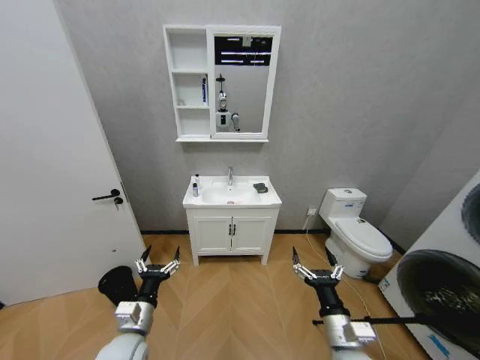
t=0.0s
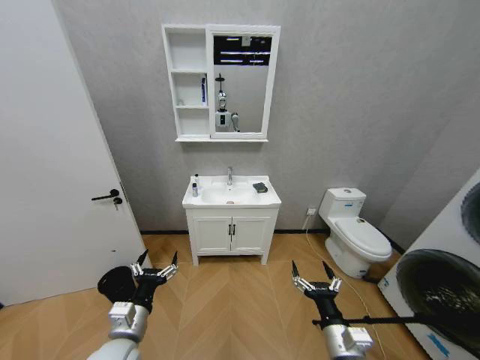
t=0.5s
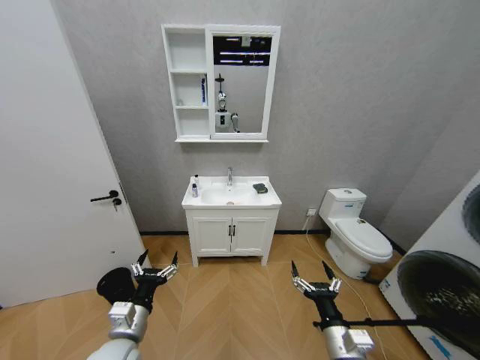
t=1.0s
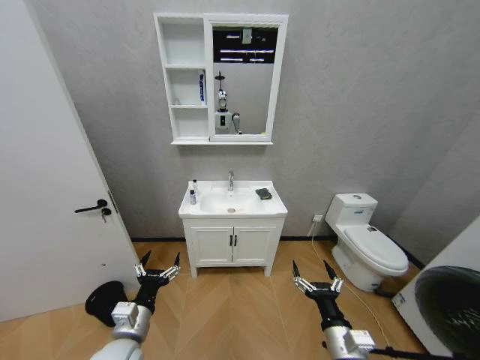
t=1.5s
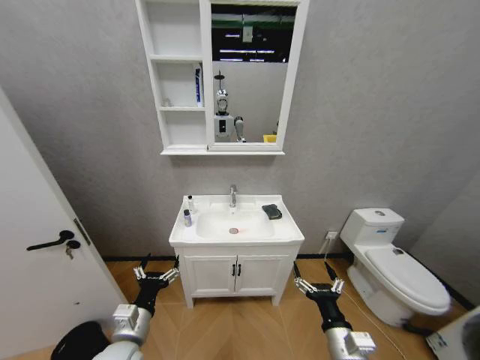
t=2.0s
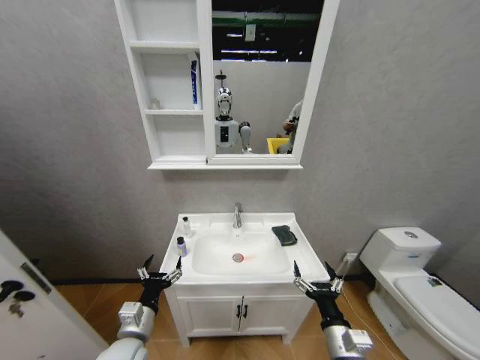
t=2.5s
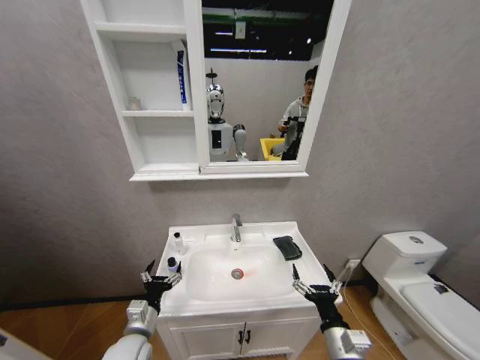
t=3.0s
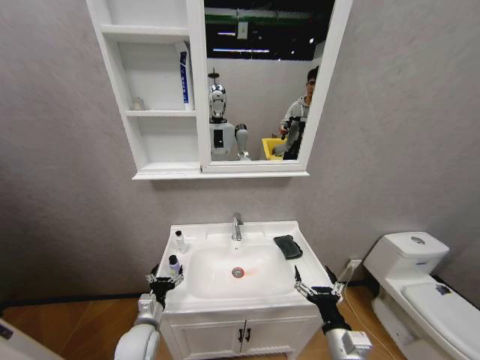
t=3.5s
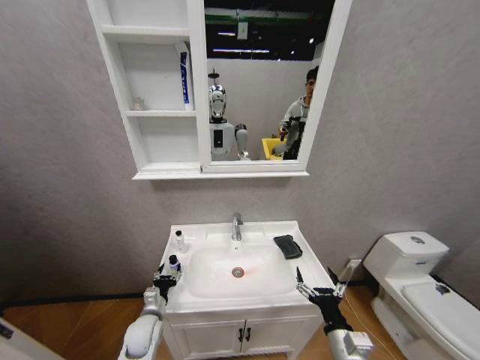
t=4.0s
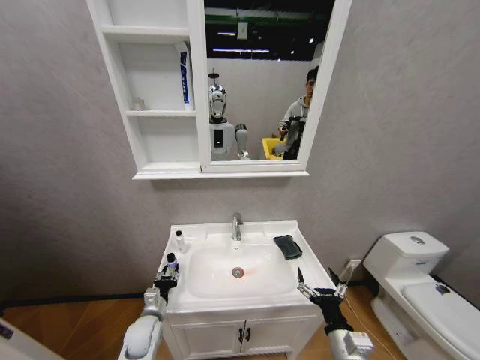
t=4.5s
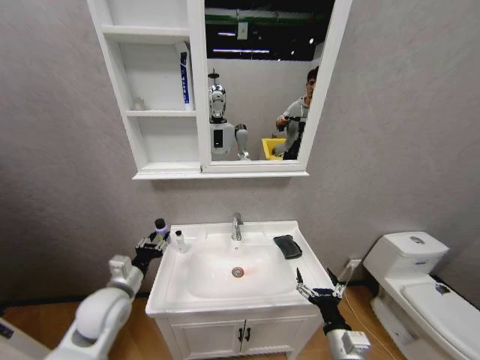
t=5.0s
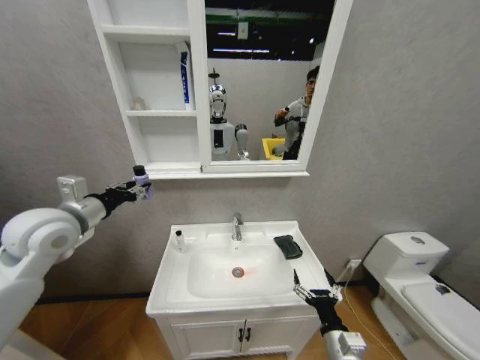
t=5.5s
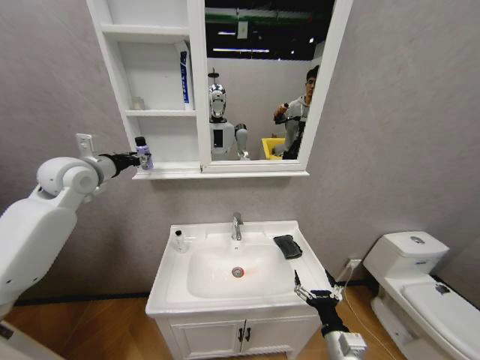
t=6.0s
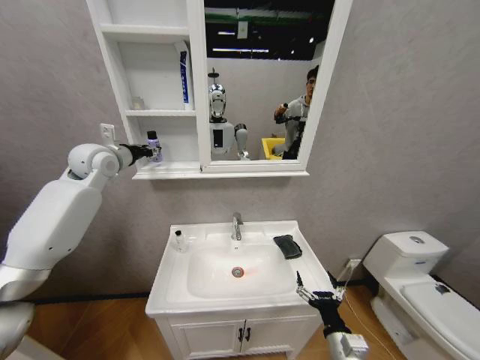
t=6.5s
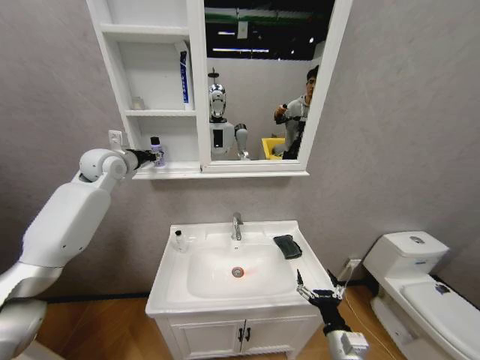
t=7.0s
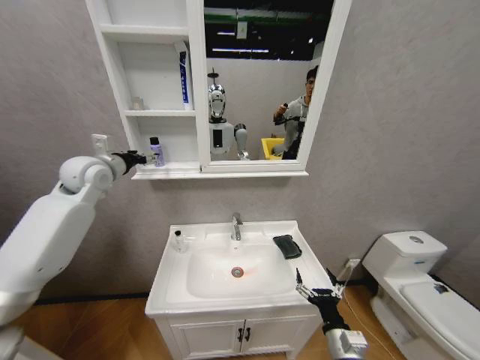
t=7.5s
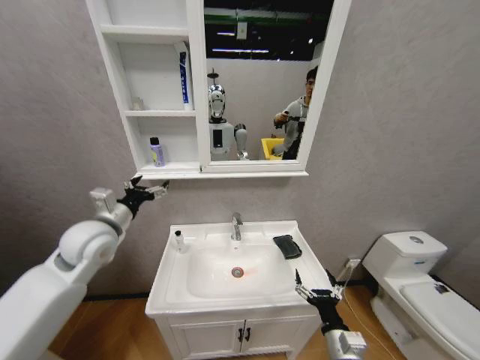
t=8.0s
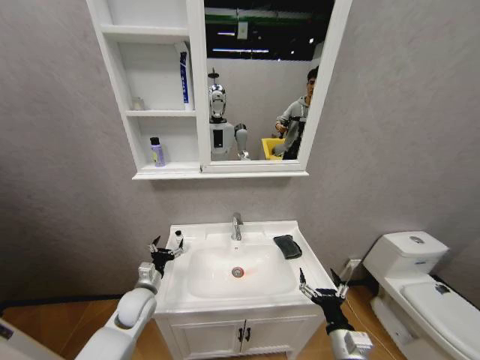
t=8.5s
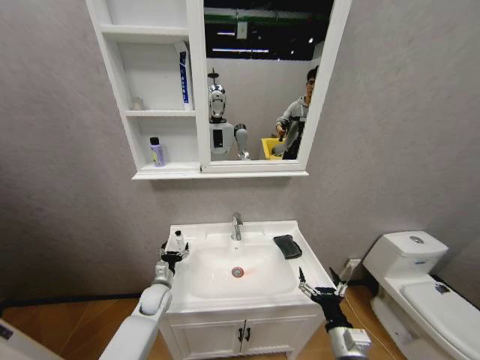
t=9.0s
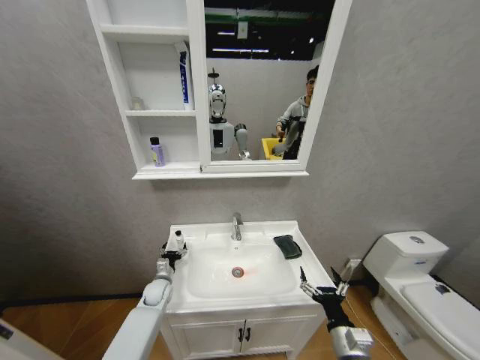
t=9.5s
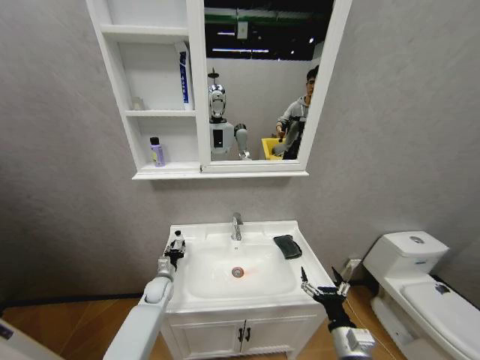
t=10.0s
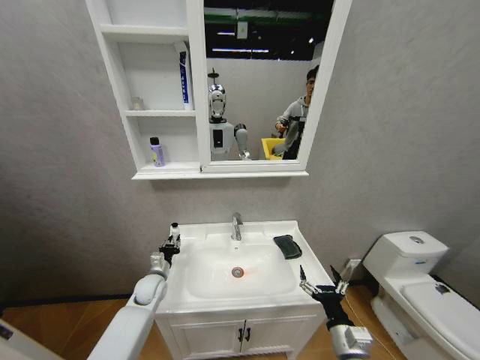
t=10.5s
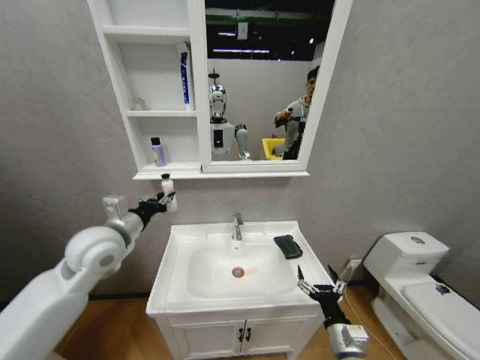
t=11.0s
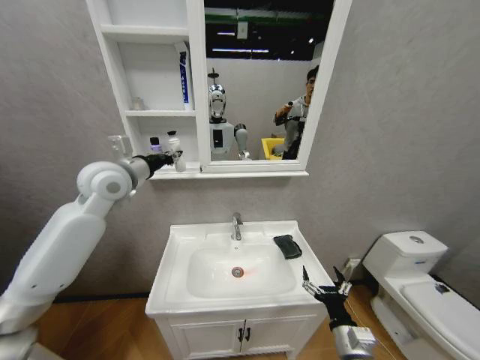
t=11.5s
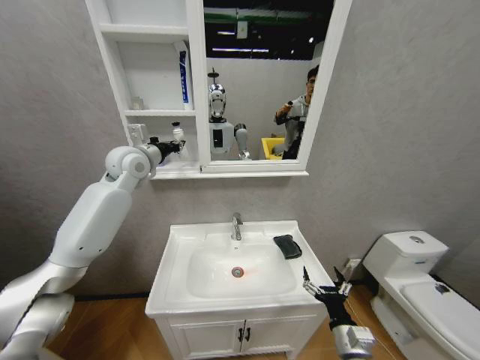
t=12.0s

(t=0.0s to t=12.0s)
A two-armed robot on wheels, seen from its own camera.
Task of the whole recording: Move facial cleanser and shampoo from washbasin to cabinet, then wipe washbasin with towel.
t=2.0s - t=4.0s: The left gripper goes approximately 15 cm downward and forward.
t=4.0s - t=6.0s: The left gripper is displaced upward by approximately 50 cm, and closes up.
t=6.0s - t=8.0s: The left gripper travels downward, backward and to the right by roughly 15 cm, and opens its fingers.
t=8.0s - t=10.0s: The left gripper moves downward, approximately 35 cm, and closes up.
t=10.0s - t=12.0s: The left gripper is displaced upward by about 50 cm.

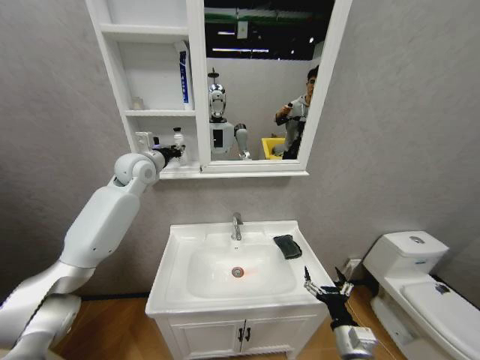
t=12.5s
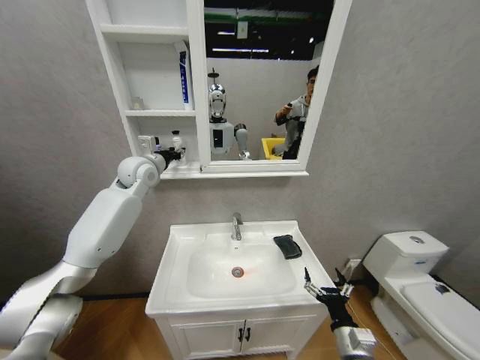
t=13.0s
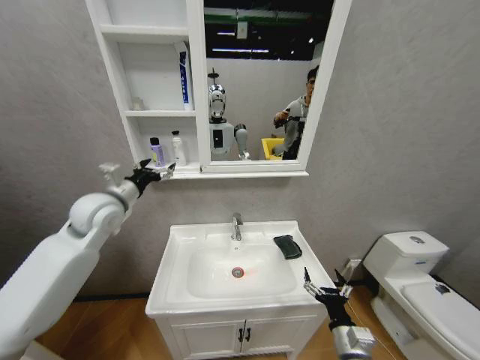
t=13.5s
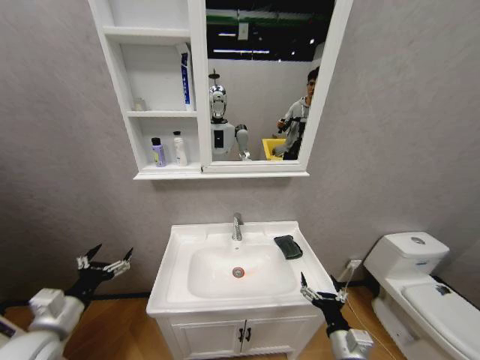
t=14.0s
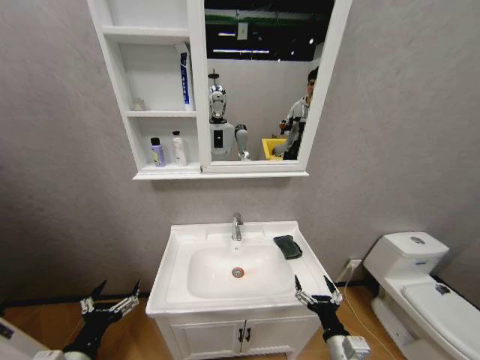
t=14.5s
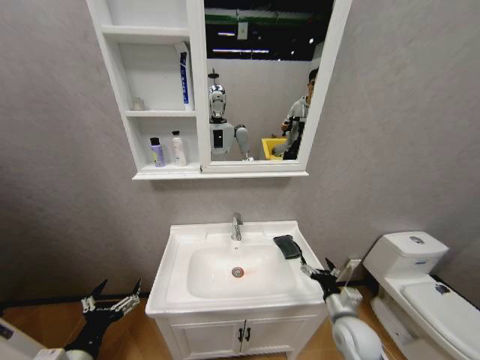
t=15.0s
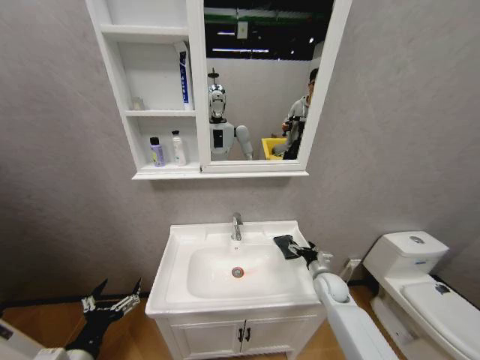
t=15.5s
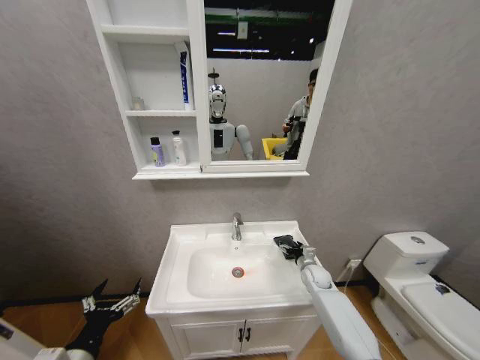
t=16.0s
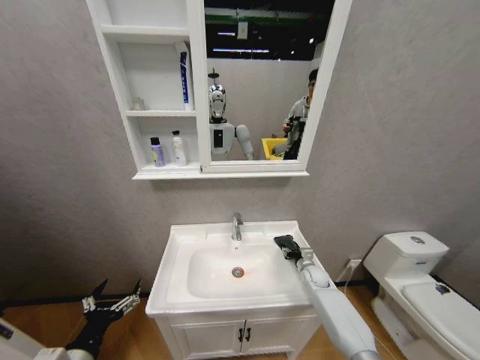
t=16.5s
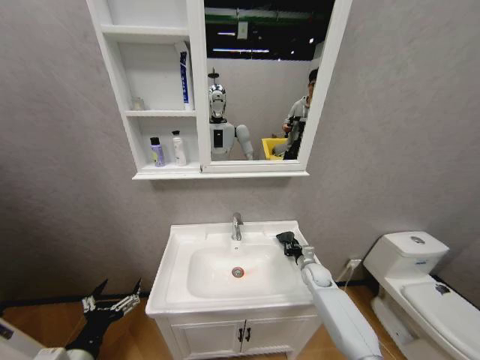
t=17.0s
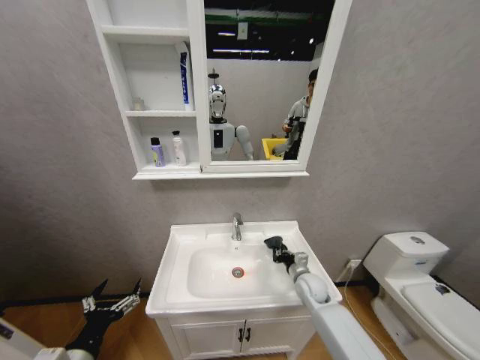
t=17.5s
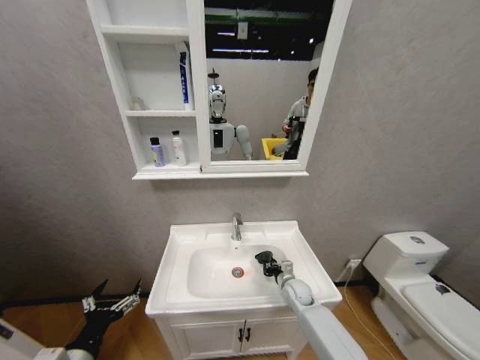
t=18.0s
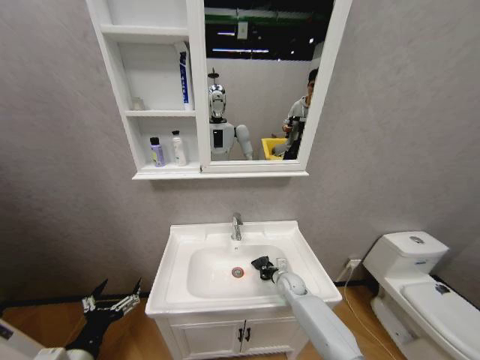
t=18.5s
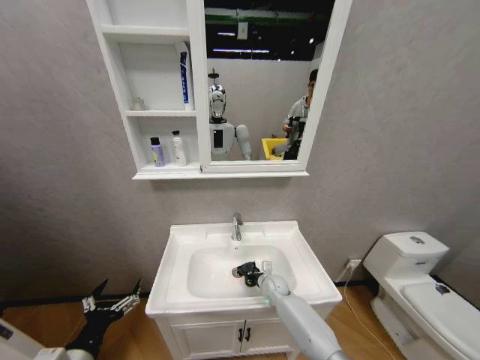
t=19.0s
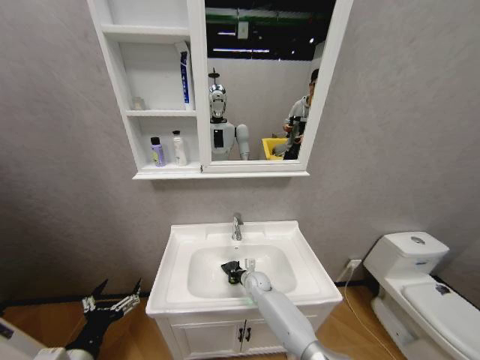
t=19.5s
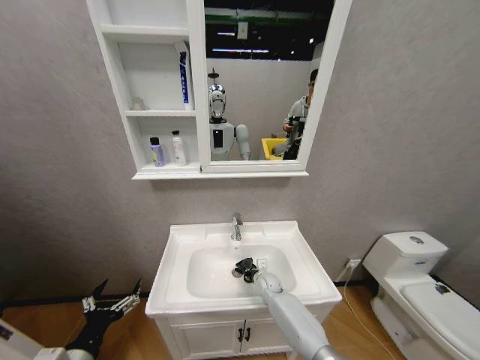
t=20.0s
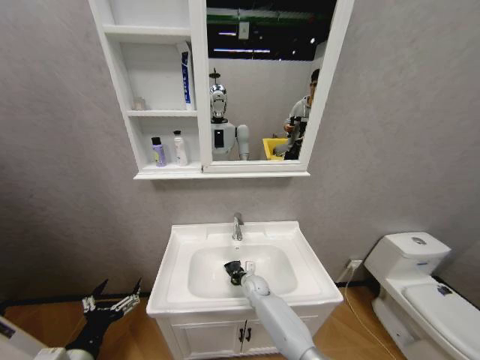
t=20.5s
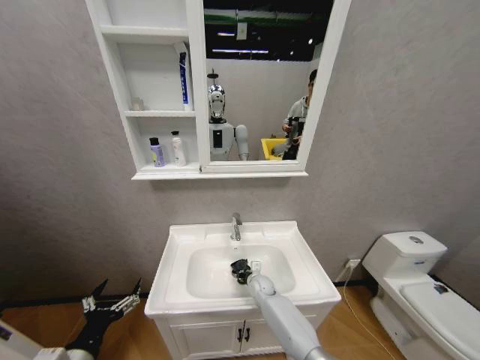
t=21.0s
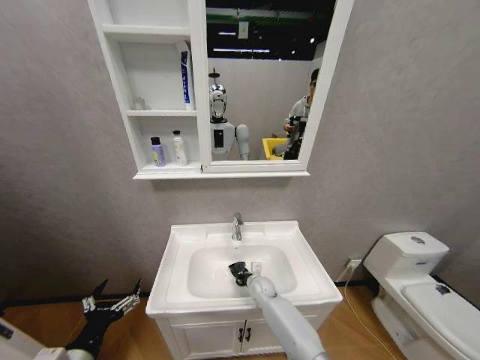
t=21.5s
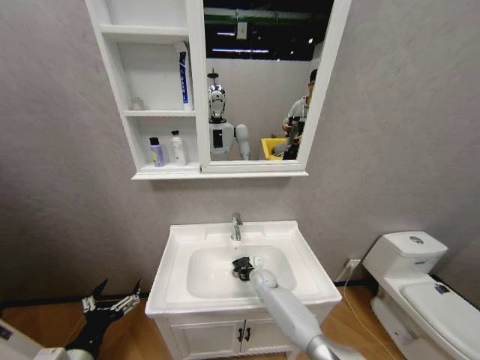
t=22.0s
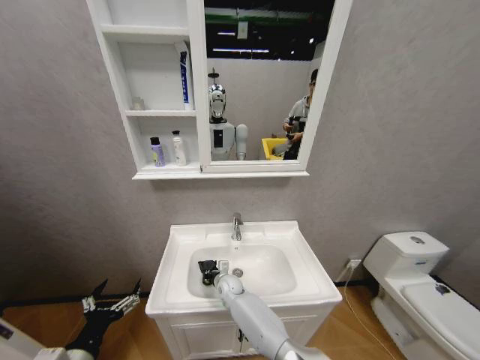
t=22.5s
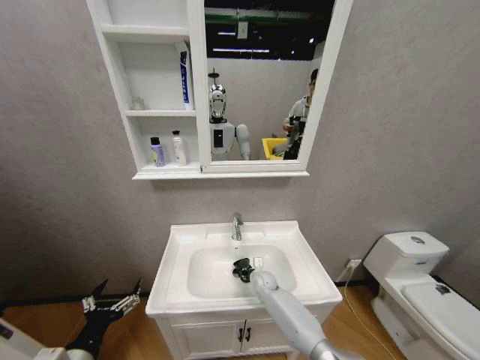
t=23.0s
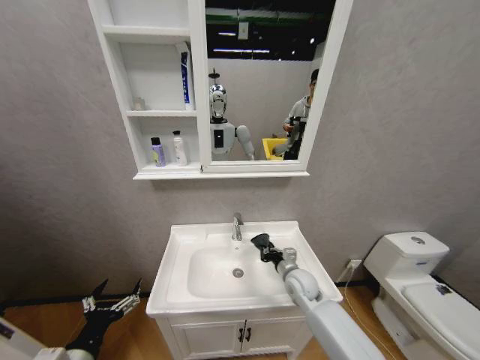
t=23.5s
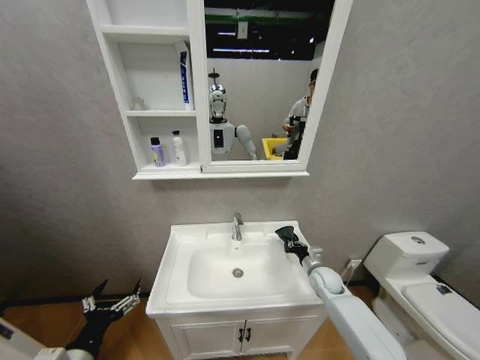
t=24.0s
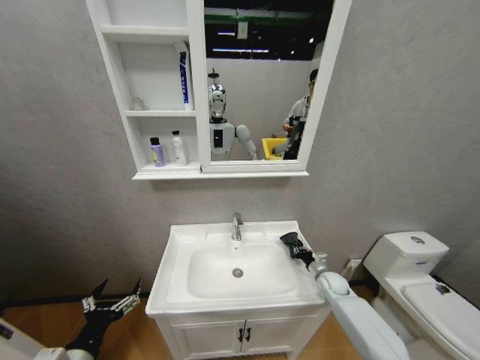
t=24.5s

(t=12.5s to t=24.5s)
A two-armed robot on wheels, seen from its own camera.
Task of the whole recording: Move facial cleanser and shampoo from washbasin to cabinet, then wipe washbasin with towel.
t=12.5s - t=14.5s: The left gripper is displaced backward and downward by roughly 50 cm, and opens its fingers.
t=14.5s - t=16.5s: The right gripper is displaced forward by approximately 30 cm.
t=16.5s - t=18.5s: The right gripper goes some 10 cm to the left, and closes up.
t=18.5s - t=20.5s: The right gripper moves left and right over about 15 cm, changing direction 2 times.
t=20.5s - t=22.5s: The right gripper travels to the left by some 10 cm.
t=22.5s - t=24.5s: The right gripper travels to the right by approximately 35 cm.

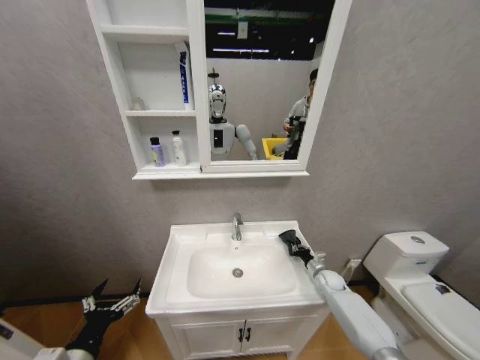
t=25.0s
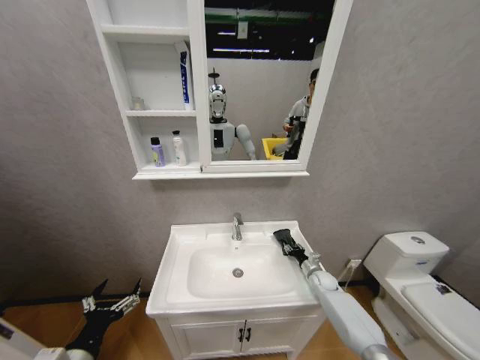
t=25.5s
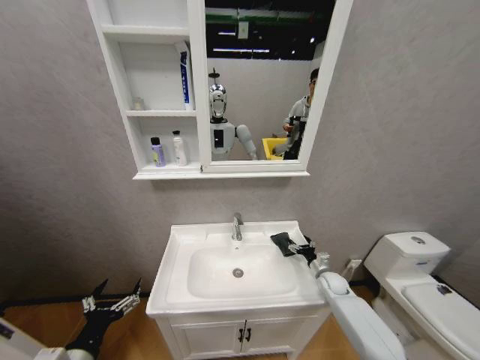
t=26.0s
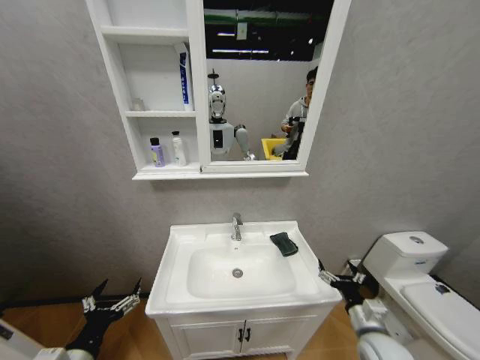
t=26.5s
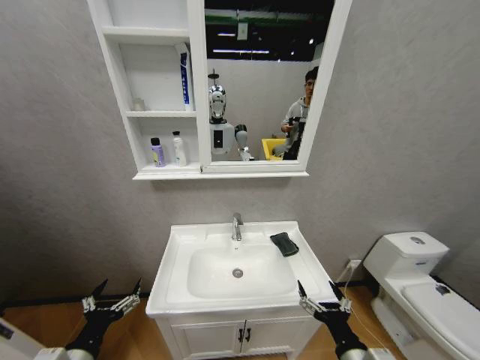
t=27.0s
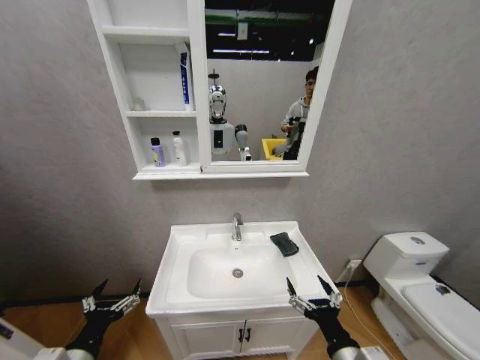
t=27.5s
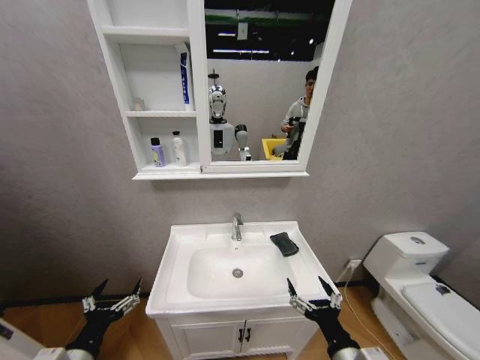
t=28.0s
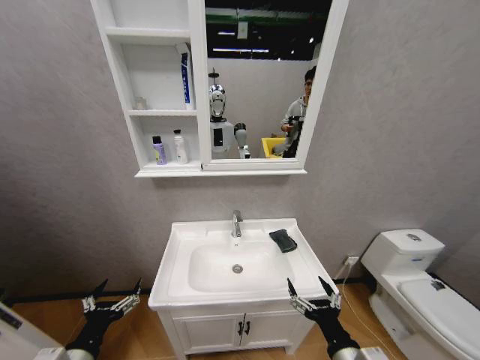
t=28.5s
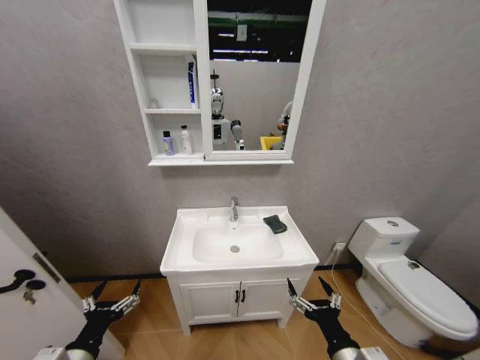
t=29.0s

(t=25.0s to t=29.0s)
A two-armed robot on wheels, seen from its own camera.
Task of the whole recording: Move facial cleanser and shampoo from washbasin to cabinet, then wipe washbasin with towel.
t=25.0s - t=27.0s: The right gripper goes approximately 35 cm backward, and opens.
